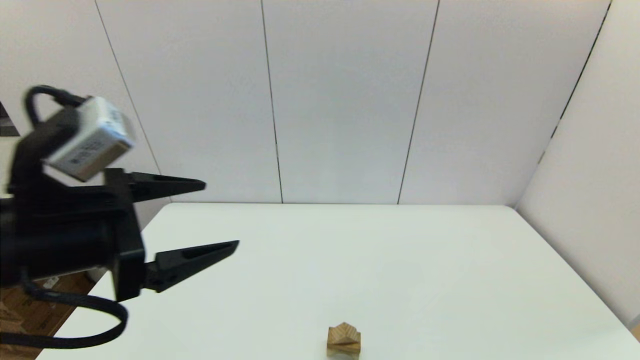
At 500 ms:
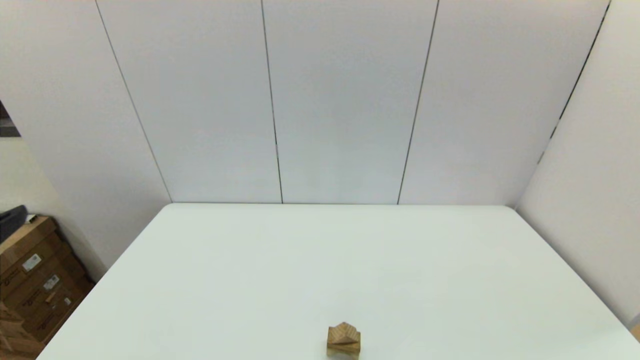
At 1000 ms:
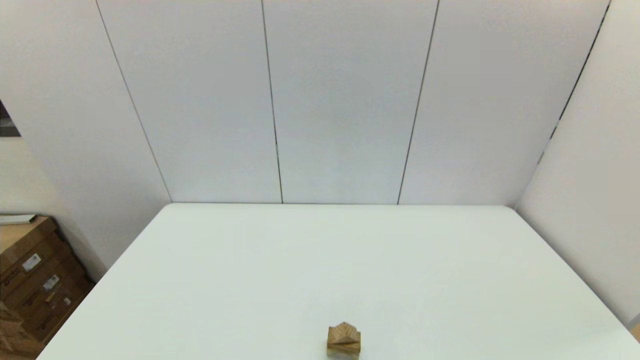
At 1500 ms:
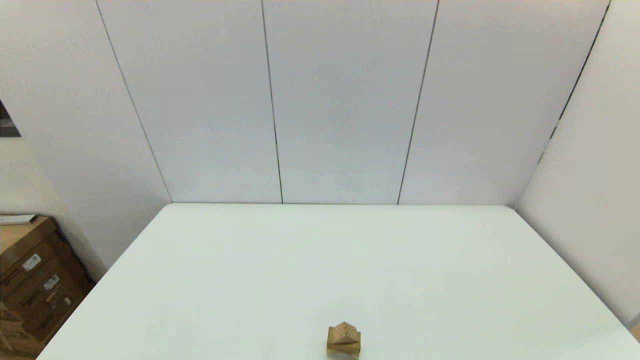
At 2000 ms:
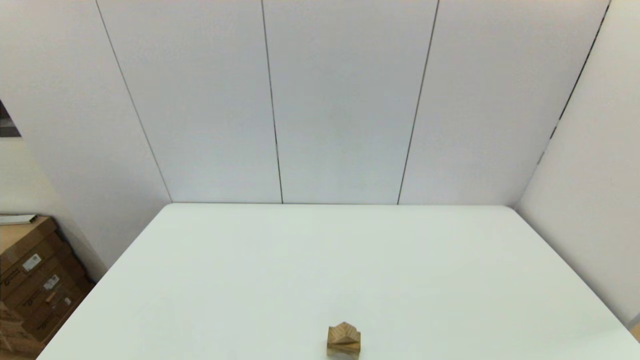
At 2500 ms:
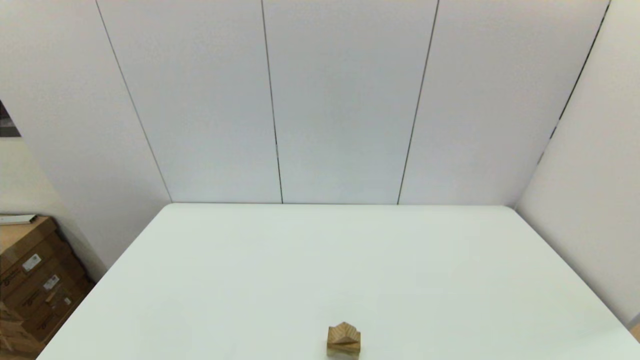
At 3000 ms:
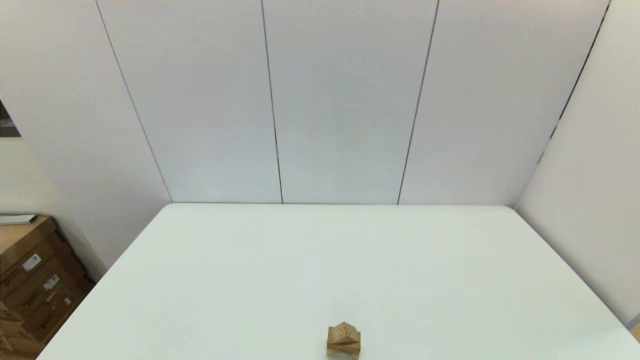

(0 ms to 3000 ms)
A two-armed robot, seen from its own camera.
Task of the whole recording: place the arched building blocks in the center of the table, set up the rectangular building blocks, and then set up the triangular building blocks.
0 ms - 1500 ms: The left gripper is displaced backward, downward and to the left by some 25 cm.
